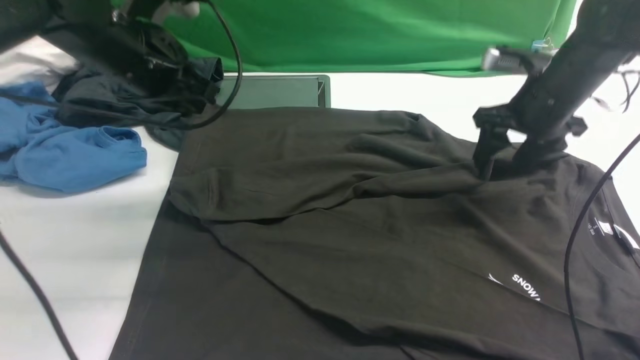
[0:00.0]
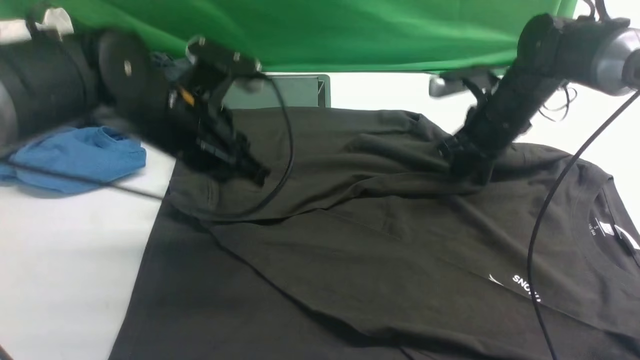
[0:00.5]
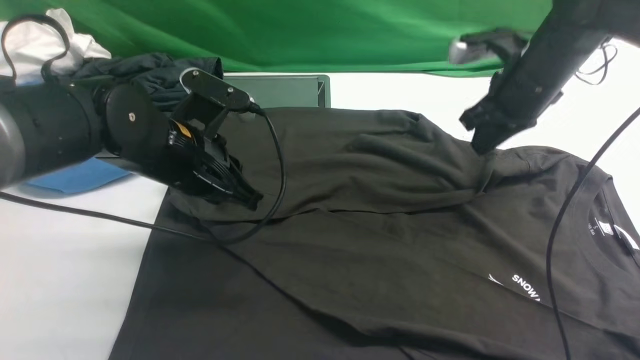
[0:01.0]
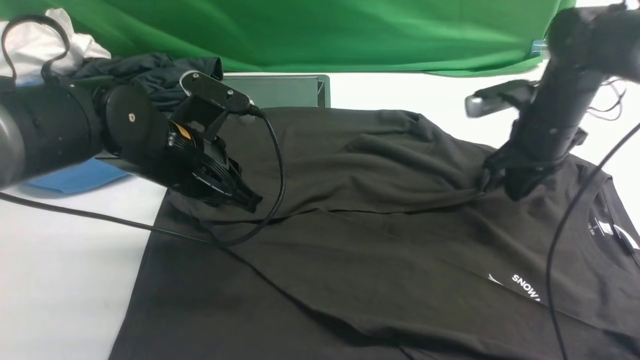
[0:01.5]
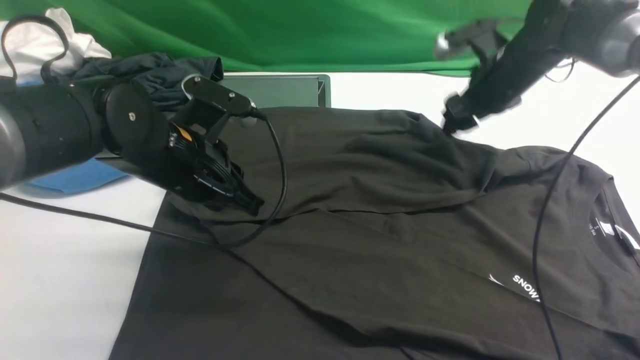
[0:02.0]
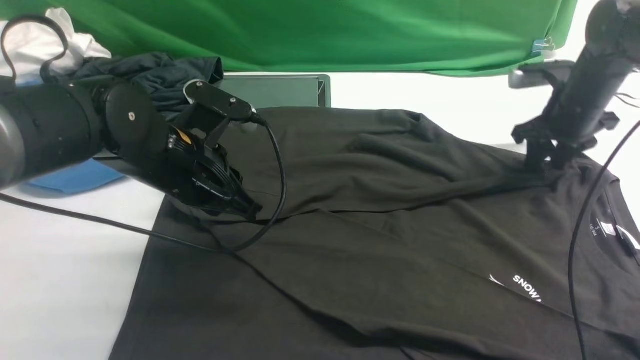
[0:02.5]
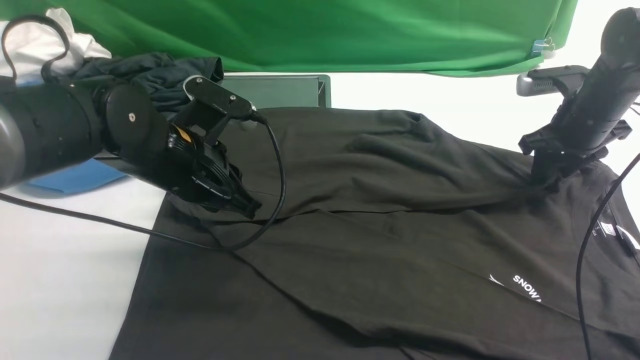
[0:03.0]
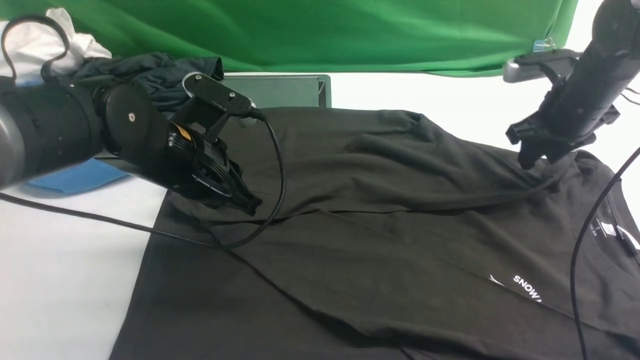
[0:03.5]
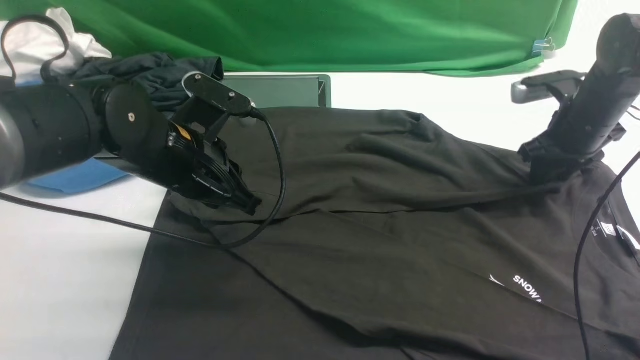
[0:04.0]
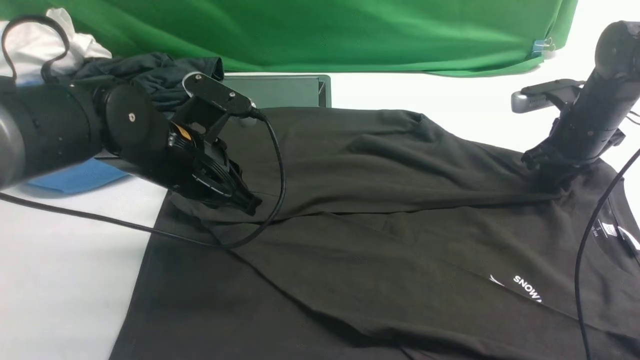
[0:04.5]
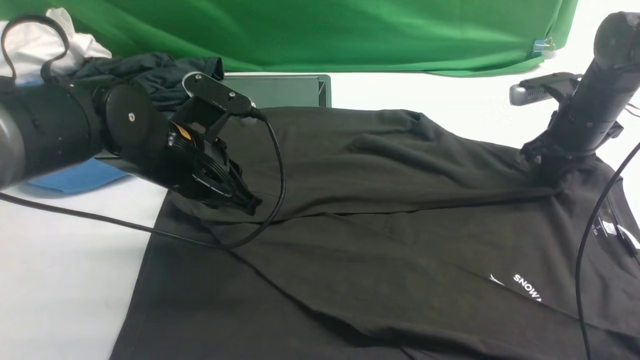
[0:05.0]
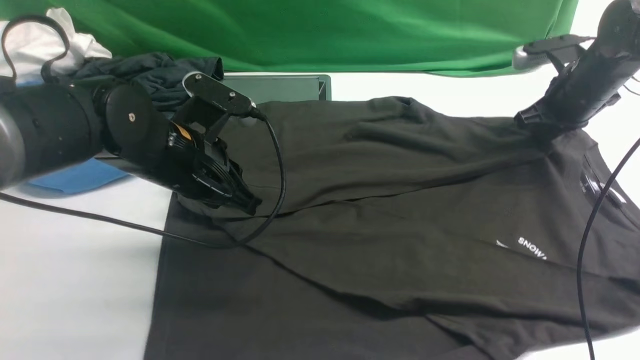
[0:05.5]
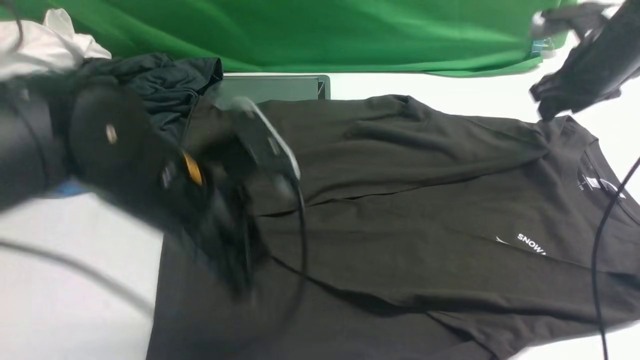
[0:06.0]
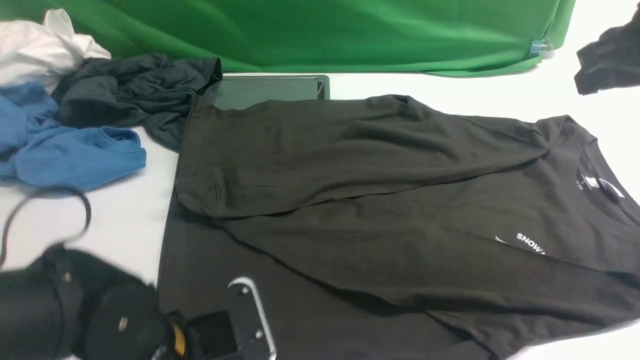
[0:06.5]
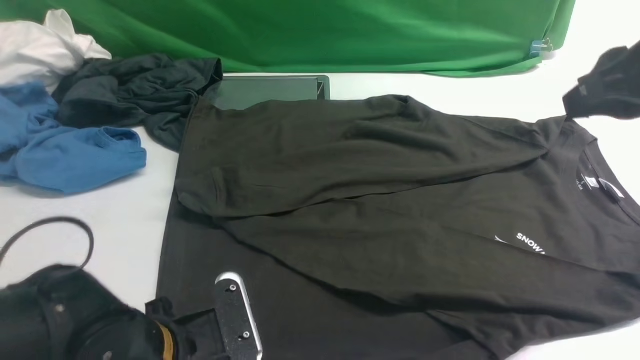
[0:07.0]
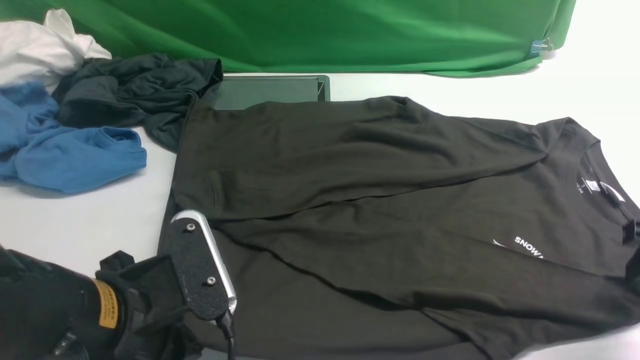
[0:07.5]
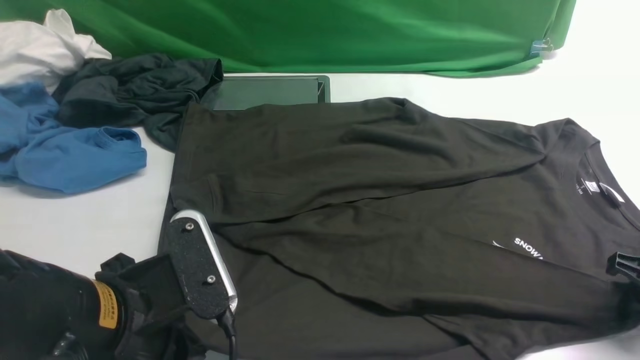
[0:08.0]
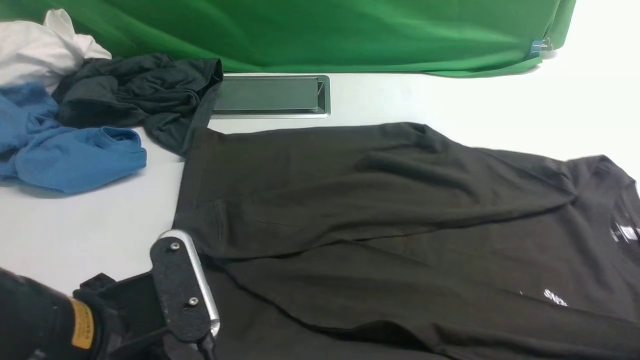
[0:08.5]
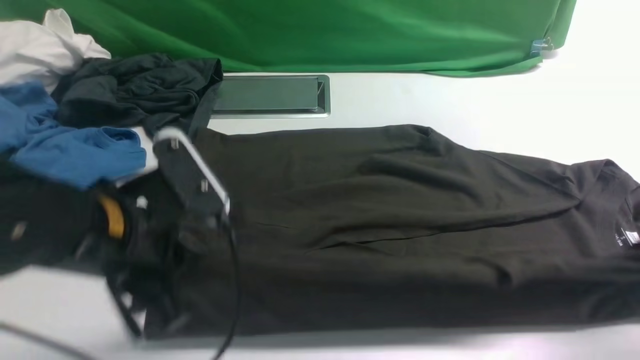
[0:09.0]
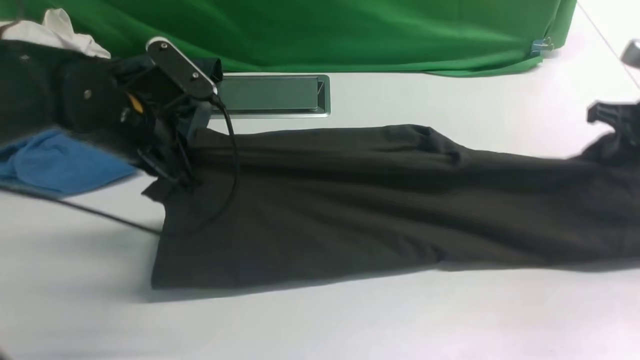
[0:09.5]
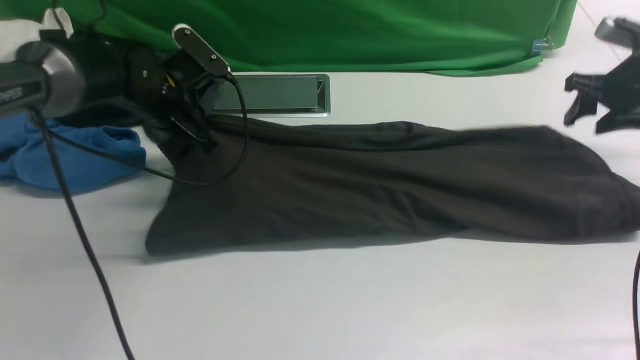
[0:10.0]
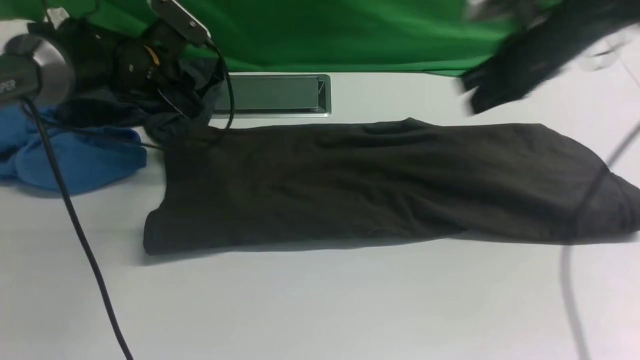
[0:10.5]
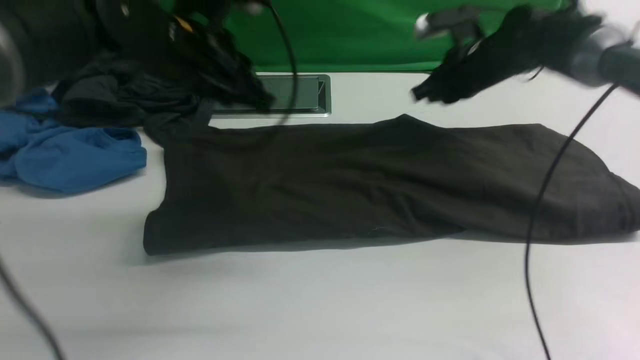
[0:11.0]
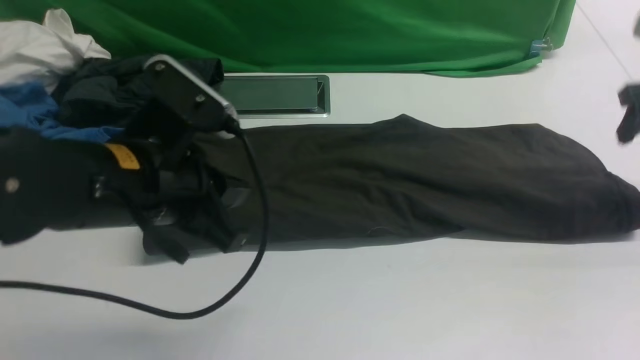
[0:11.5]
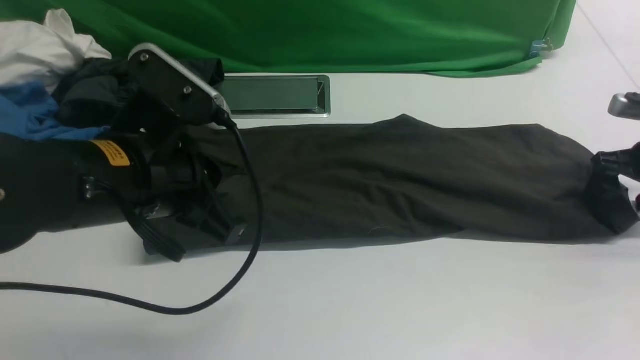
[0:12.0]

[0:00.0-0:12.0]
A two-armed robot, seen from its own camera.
Step, 0:00.0 to 0:08.5: use both arms simultaneously to clamp the lower edge of the clothing fabric.
Step, 0:09.0 to 0:11.0: use both arms to drag the lower edge of the fabric forward and fold it over the upper edge.
0:00.0 to 0:02.0: The right gripper shifts by approximately 5 cm, and closes and opens again, while the left gripper heads downward and backward, covering approximately 10 cm.
0:02.0 to 0:04.0: The right gripper travels to the right by about 5 cm.
0:04.0 to 0:06.0: The left gripper moves backward, approximately 10 cm; the right gripper heads upward, covering approximately 10 cm, and closes, then reopens.
0:06.0 to 0:08.0: The right gripper travels backward and downward by about 25 cm, while the left gripper is displaced backward by about 10 cm, and opens and closes again.
0:08.0 to 0:10.0: The two grippers go approximately 25 cm forward. The right gripper closes and opens again.
0:10.0 to 0:12.0: The right gripper goes roughly 10 cm downward and backward, goes to the left and returns, approximately 15 cm each way, and closes and opens again. The left gripper goes some 25 cm backward and upward.

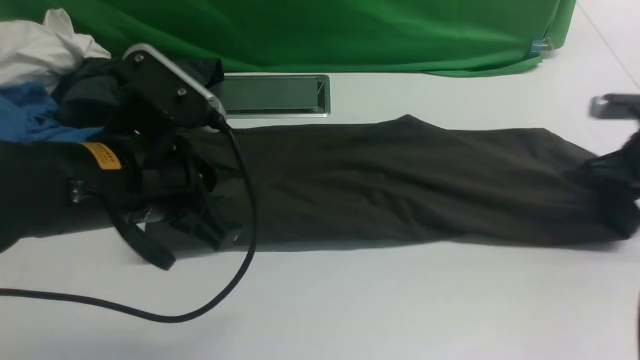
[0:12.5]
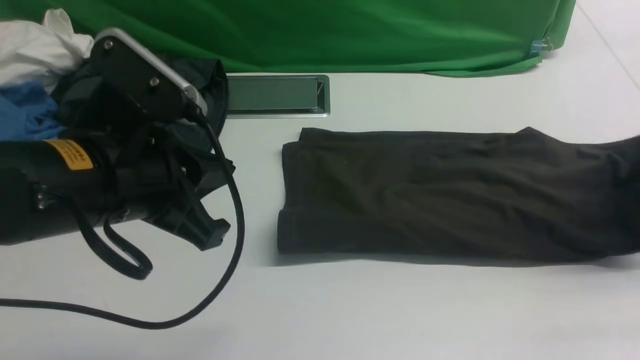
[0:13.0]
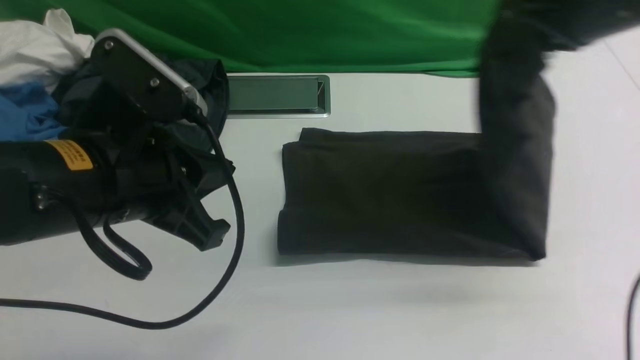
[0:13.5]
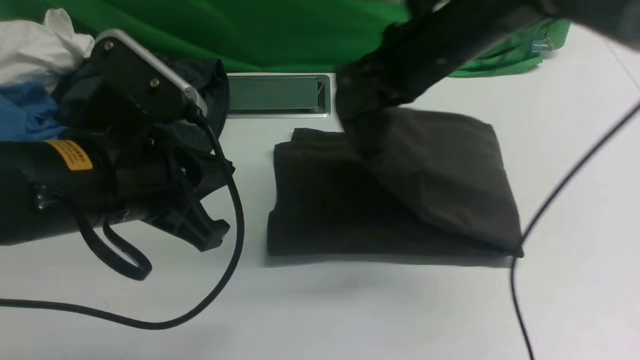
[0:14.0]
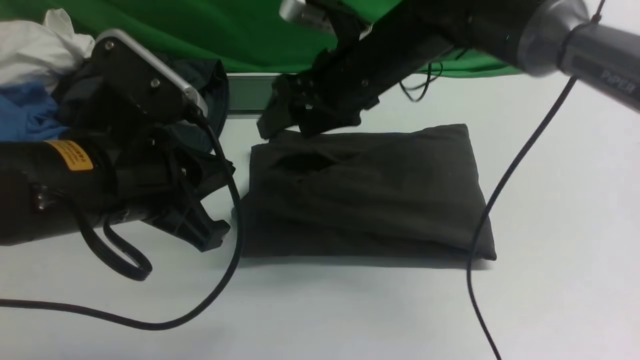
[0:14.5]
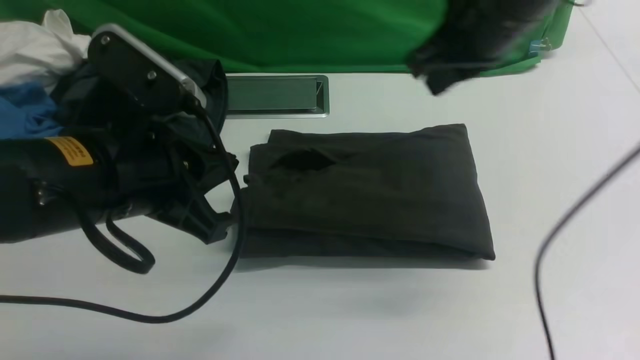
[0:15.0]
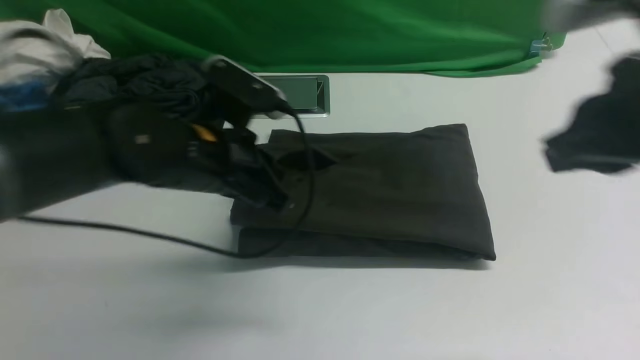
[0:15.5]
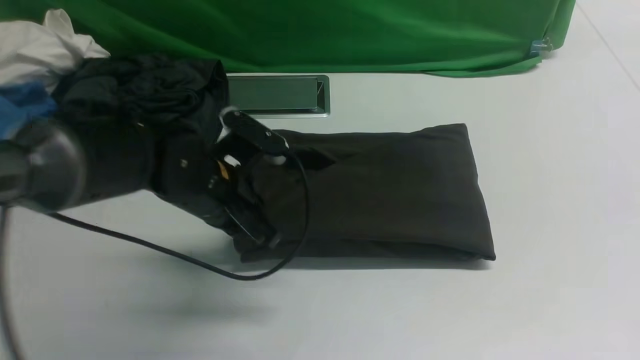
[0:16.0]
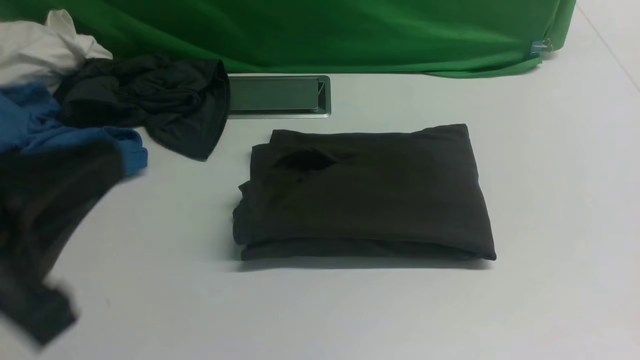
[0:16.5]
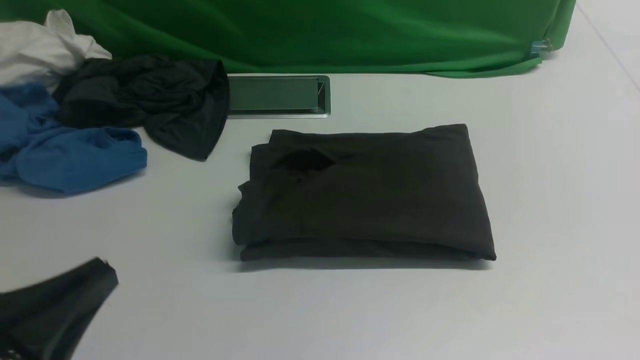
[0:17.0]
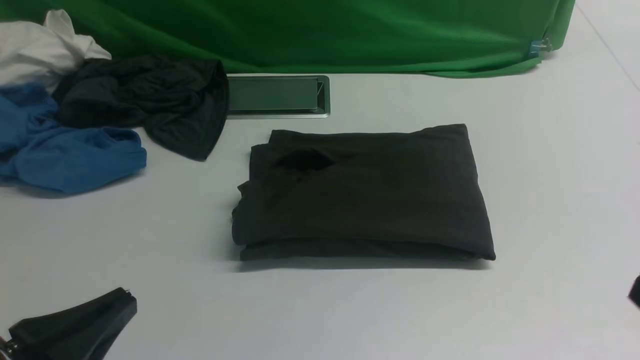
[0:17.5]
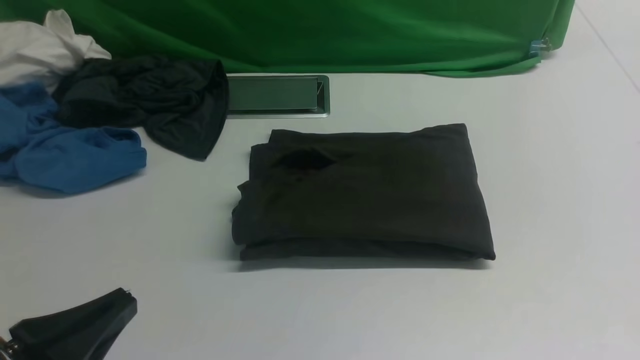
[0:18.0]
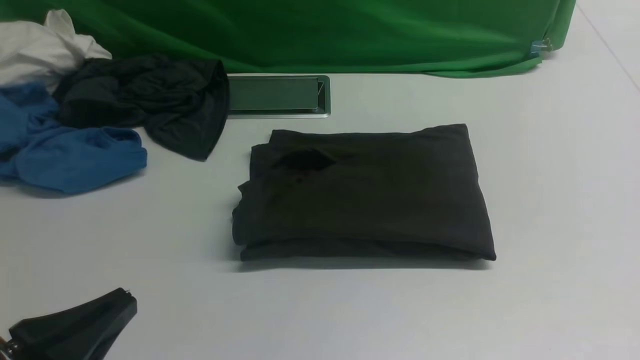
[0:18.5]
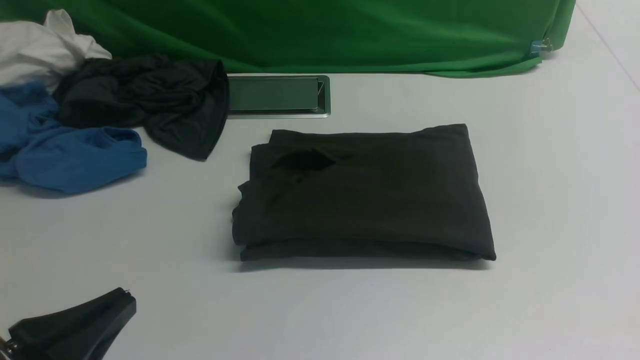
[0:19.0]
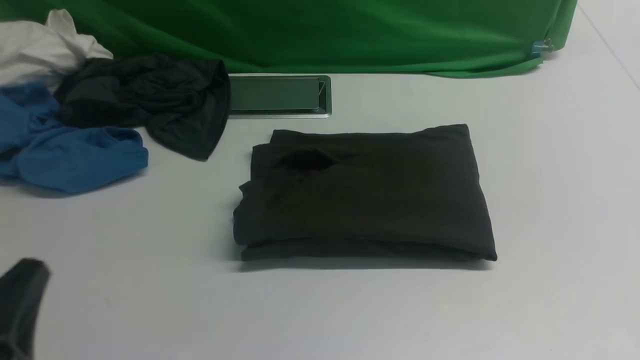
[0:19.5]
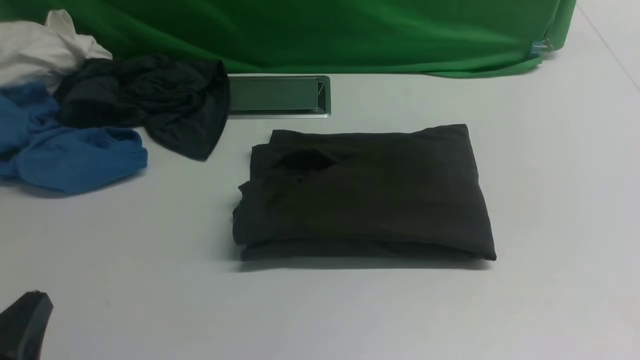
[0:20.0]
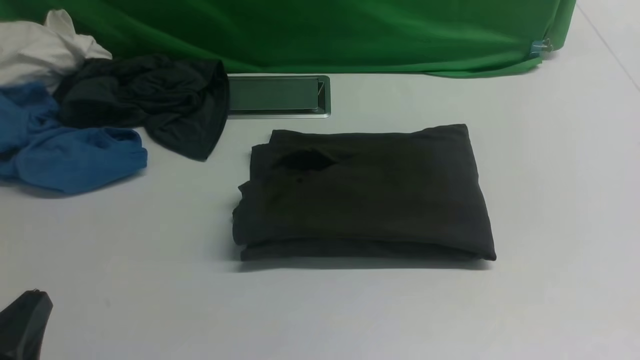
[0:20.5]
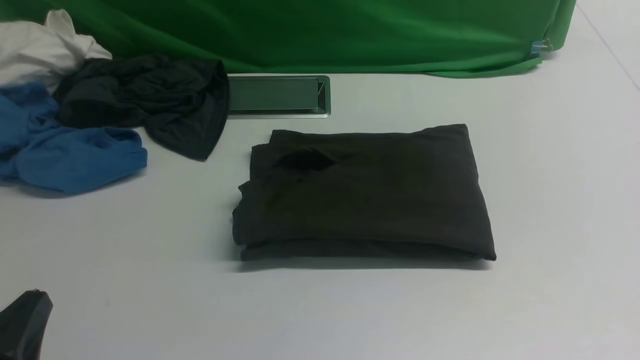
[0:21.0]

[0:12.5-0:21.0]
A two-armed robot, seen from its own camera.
Step, 0:13.0 to 0:14.5: use the right arm to drag the right edge of the fabric to the left and folds it over the left edge.
0:12.5 to 0:14.5: The right gripper shifts some 35 cm to the left, and opens its fingers.
0:14.5 to 0:16.5: The left gripper travels backward by some 10 cm, while the right gripper heads backward and to the right, covering approximately 40 cm, and closes its fingers.
0:16.5 to 0:19.0: The left gripper goes approximately 10 cm downward.
